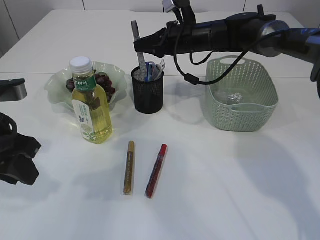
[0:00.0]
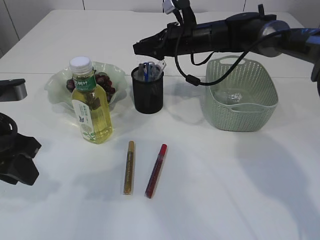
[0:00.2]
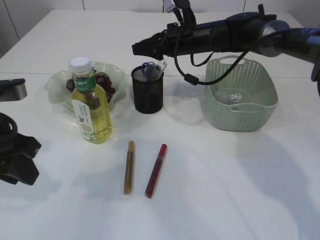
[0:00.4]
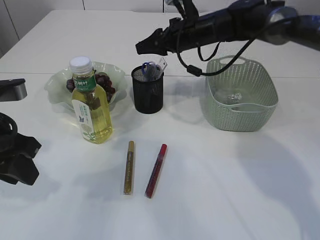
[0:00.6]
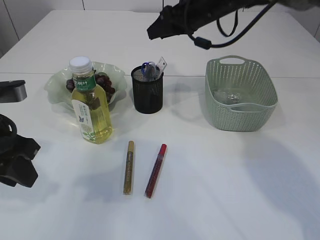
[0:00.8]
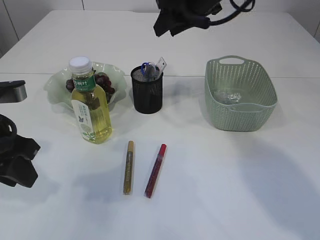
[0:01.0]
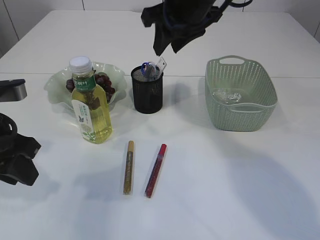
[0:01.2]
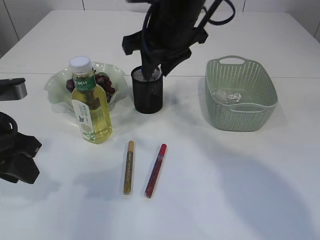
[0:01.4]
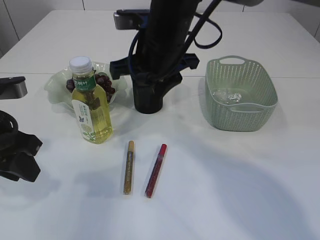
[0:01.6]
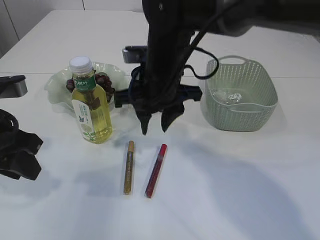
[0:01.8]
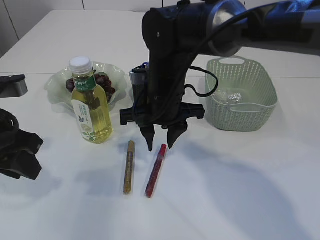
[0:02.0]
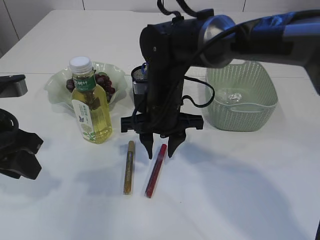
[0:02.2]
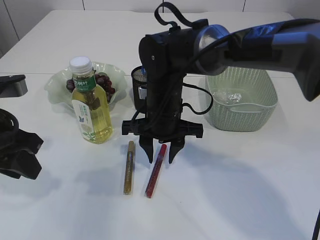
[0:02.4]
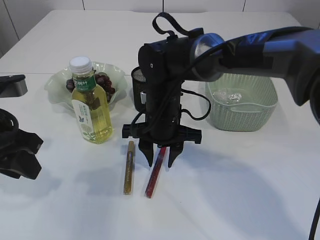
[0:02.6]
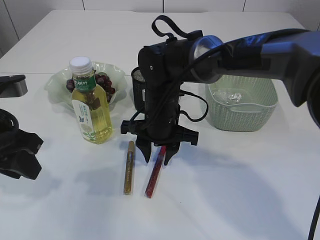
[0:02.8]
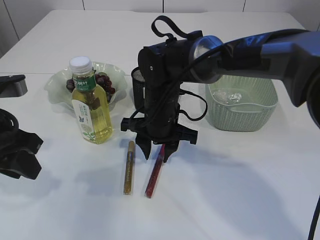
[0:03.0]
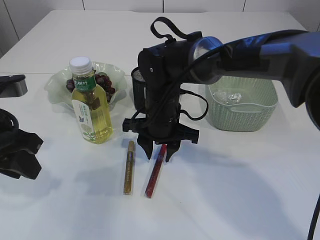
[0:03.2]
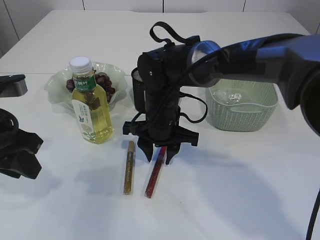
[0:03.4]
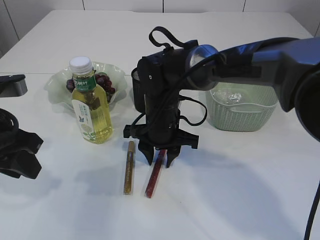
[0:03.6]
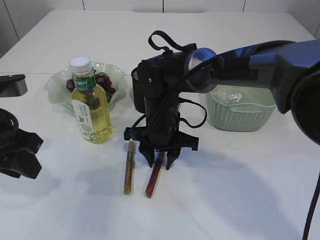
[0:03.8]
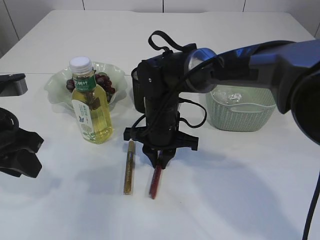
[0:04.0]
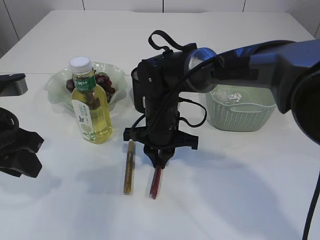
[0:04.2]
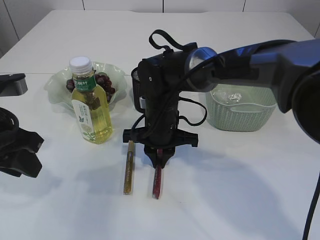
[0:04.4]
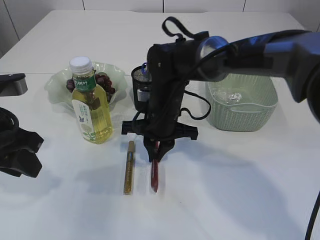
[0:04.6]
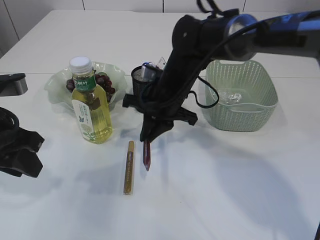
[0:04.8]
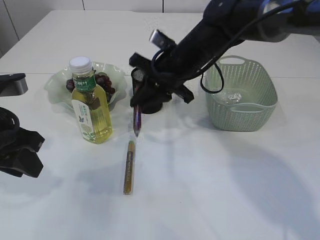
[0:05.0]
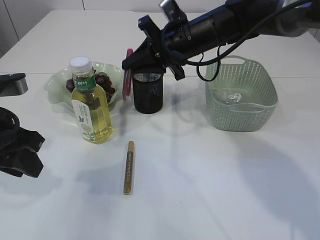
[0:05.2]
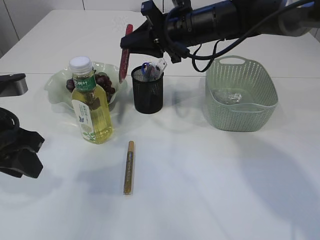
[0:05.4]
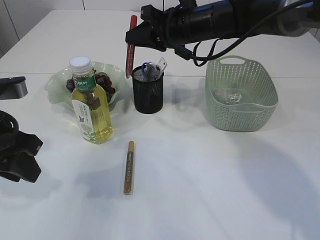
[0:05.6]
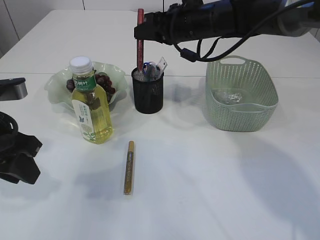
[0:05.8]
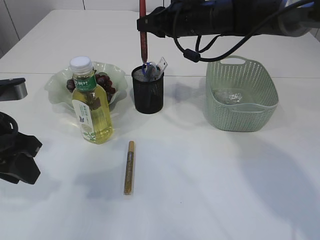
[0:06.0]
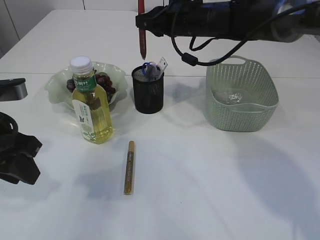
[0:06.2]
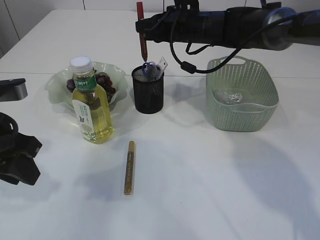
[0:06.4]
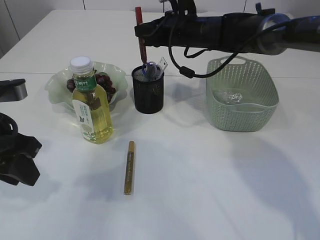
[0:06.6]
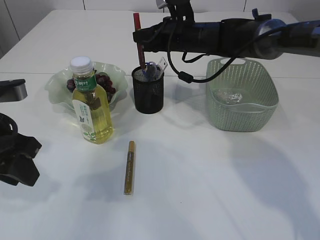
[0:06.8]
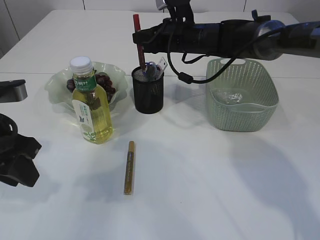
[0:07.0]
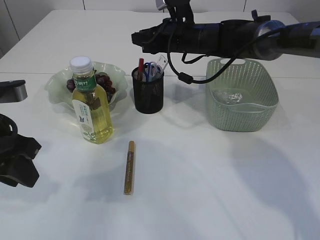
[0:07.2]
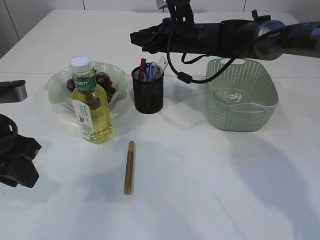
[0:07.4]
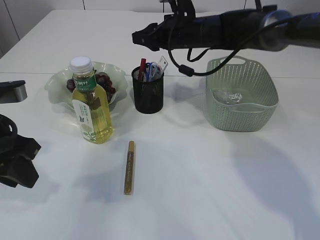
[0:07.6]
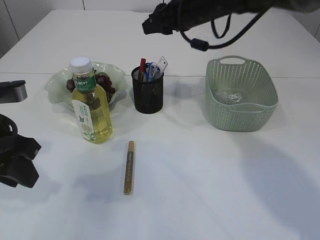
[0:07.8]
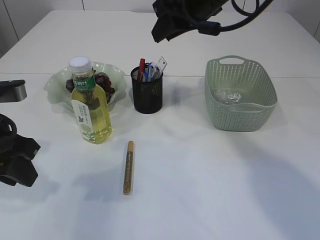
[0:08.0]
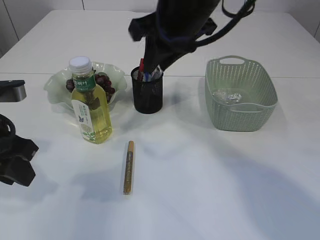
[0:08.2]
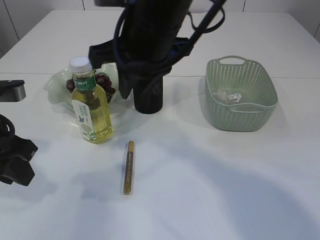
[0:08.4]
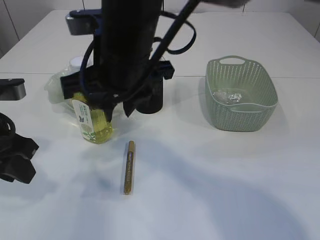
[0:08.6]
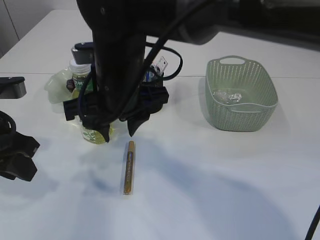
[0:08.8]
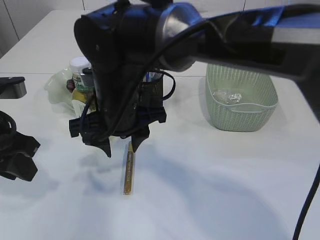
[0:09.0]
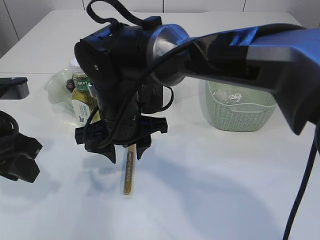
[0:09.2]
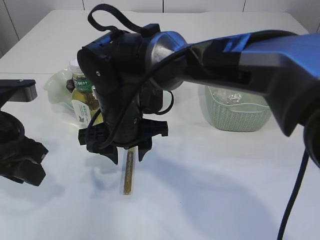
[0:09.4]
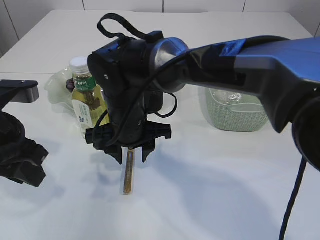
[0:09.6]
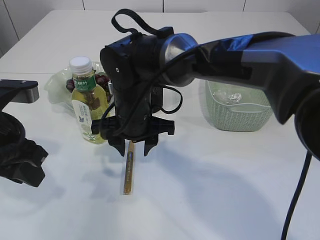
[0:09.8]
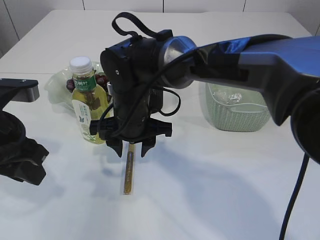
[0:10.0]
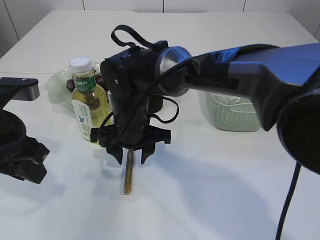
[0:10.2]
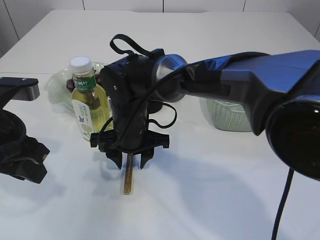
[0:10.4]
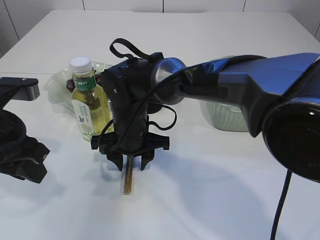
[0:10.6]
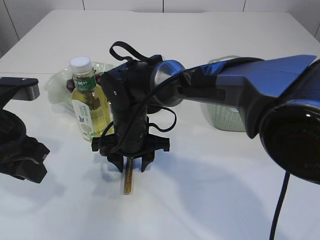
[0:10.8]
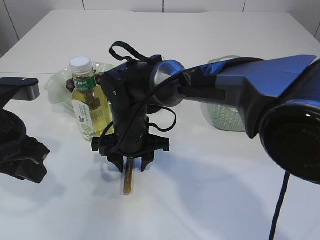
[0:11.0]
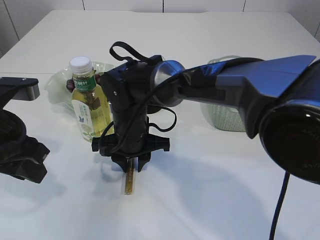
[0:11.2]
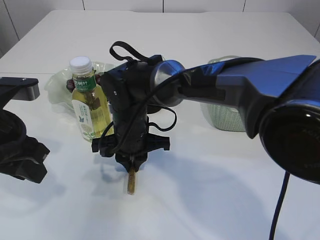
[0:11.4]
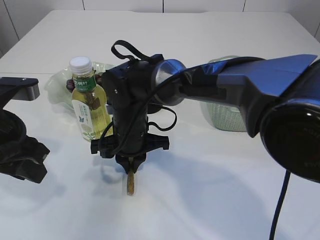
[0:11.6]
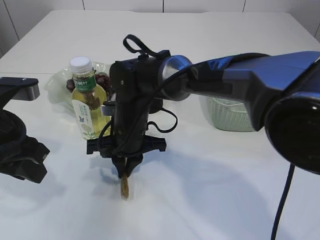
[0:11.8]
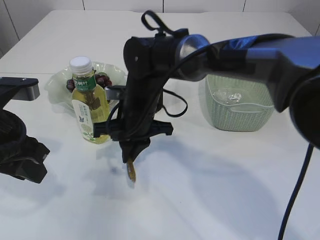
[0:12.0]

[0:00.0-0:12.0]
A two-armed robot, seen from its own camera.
Step, 0:01.0 to 0:04.6: pick up the red glue.
Step, 0:04.8 to 0:07.8: place the red glue into the pen holder.
Step, 0:08.0 to 0:11.8: pick up the yellow glue.
0:00.0 to 0:01.6: The right gripper travels backward, to the left and upward by some 20 cm, and opens.
0:01.6 to 0:03.0: The right gripper heads downward, covering about 15 cm.
0:03.0 to 0:04.4: The right gripper closes.
0:04.4 to 0:06.0: The right gripper shifts some 20 cm upward, forward and to the right.
0:06.0 to 0:07.6: The grippers move only a little.
0:07.6 to 0:09.0: The right gripper travels backward and to the left by some 25 cm.
0:09.0 to 0:10.4: The right gripper heads downward, covering approximately 10 cm.
0:10.4 to 0:12.0: The right gripper closes.

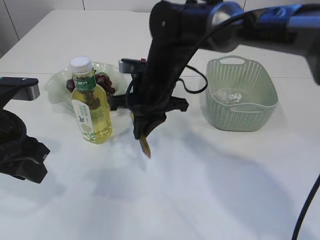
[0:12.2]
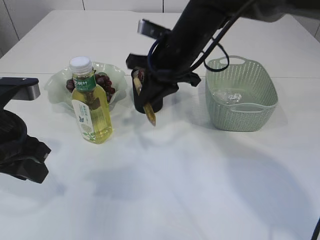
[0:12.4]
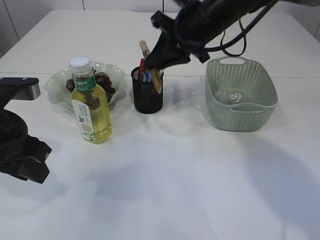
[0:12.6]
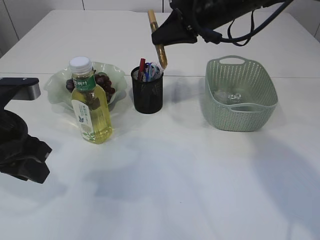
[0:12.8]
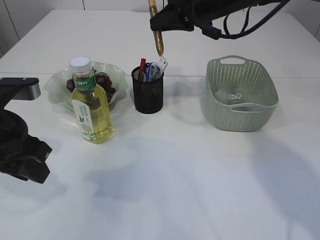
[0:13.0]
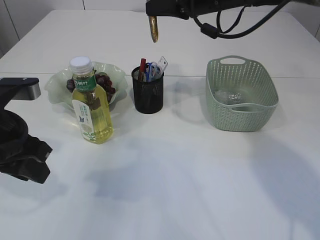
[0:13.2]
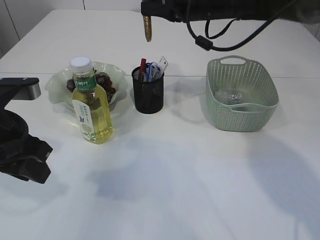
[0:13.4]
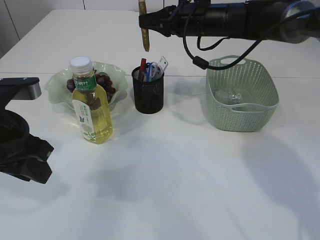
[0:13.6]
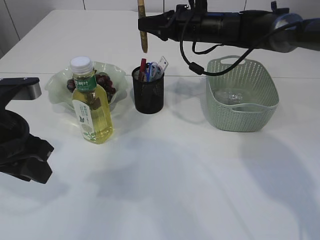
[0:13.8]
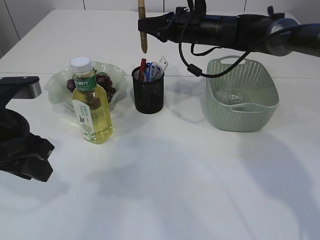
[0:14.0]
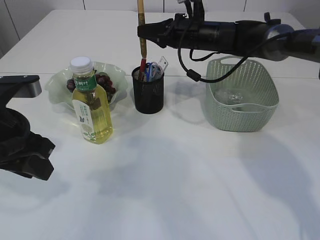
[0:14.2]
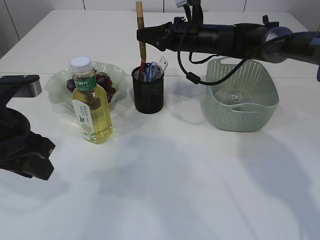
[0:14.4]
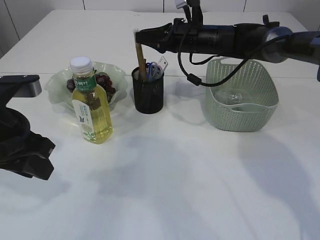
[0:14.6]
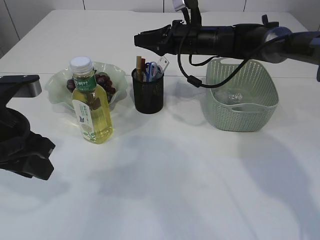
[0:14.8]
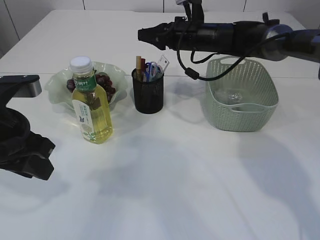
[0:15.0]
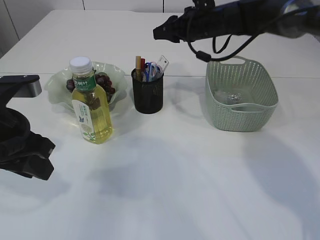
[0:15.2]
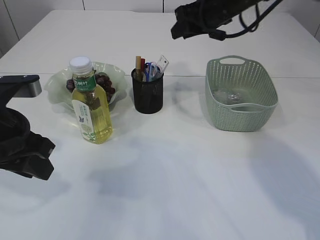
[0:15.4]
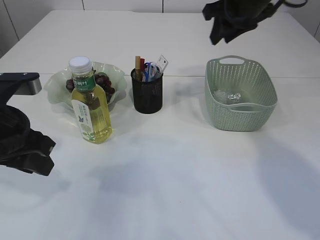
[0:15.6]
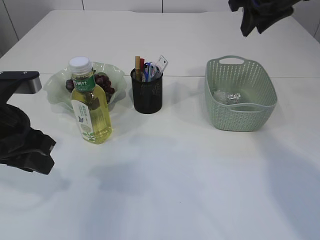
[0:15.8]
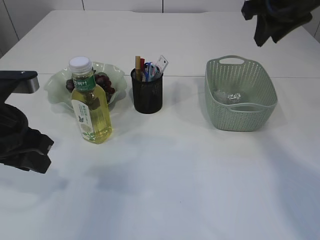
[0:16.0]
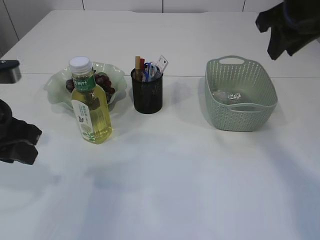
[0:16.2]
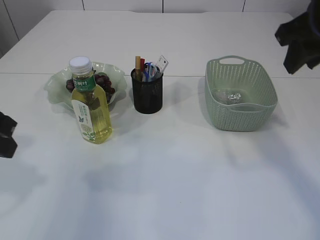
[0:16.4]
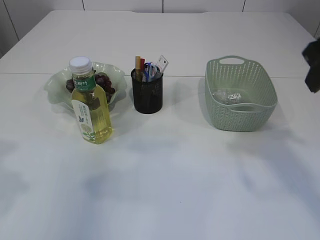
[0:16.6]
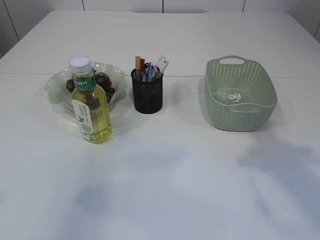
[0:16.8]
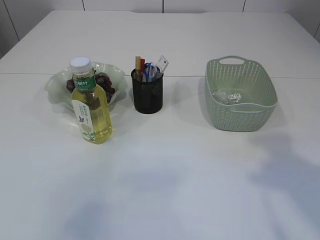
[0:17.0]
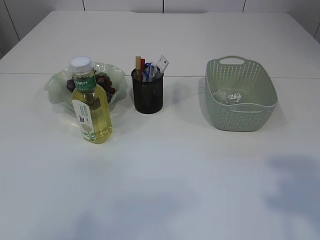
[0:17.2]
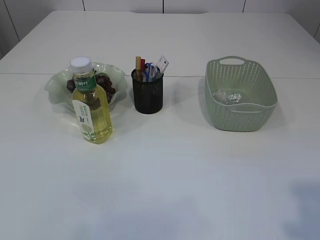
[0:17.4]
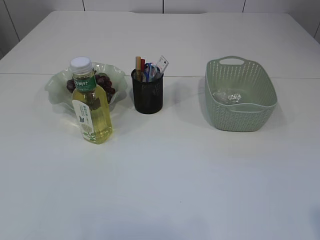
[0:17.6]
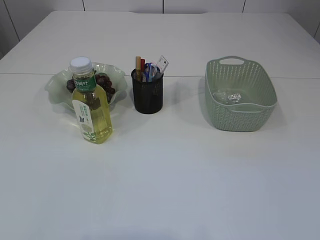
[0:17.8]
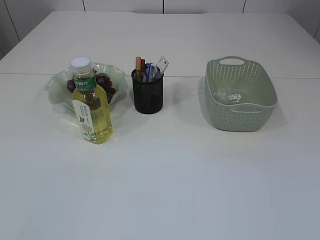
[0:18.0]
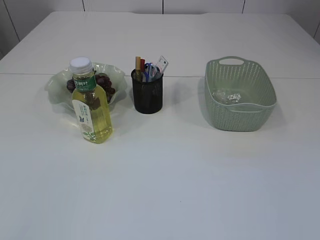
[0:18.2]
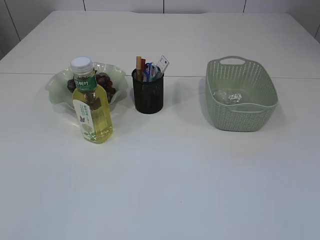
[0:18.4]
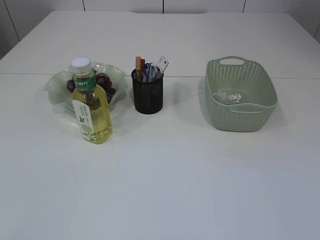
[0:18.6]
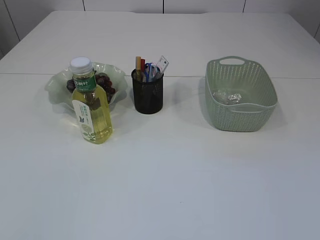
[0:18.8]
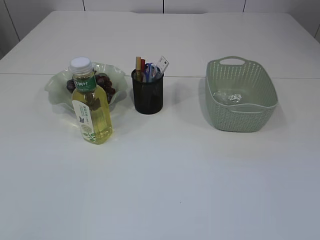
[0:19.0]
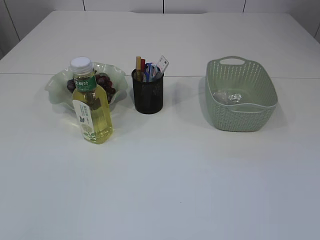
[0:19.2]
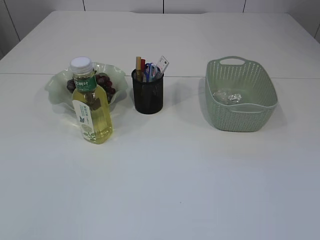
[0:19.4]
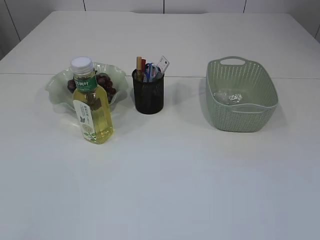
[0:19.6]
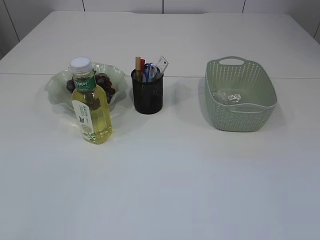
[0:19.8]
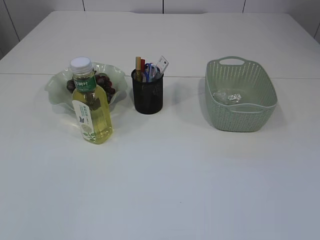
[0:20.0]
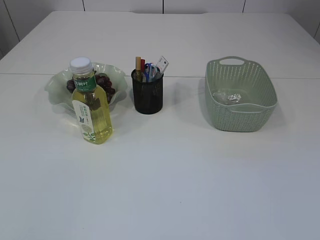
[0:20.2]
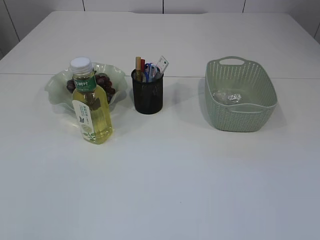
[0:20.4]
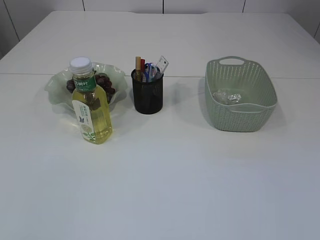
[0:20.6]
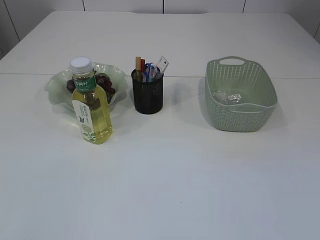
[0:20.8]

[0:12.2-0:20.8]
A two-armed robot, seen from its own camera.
Step, 0:12.2 to 0:15.2: place the yellow glue into the pen holder.
0:12.2 to 0:13.6: The right gripper is displaced forward, to the right and upward by some 15 cm.
0:13.6 to 0:15.0: The right gripper changes place by some 5 cm, and opens up.
0:15.0 to 0:16.6: The left gripper goes roughly 5 cm upward, and opens. The right gripper shifts about 30 cm backward, upward and to the right.
0:16.6 to 0:18.0: The right gripper heads backward, covering some 30 cm, while the left gripper is displaced backward and to the left by roughly 20 cm.

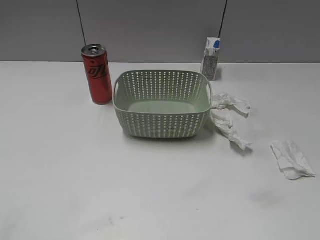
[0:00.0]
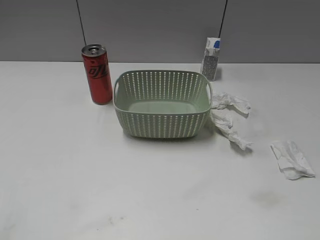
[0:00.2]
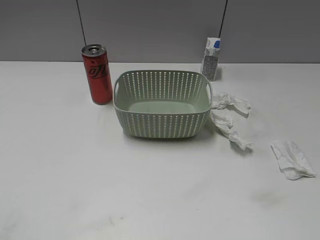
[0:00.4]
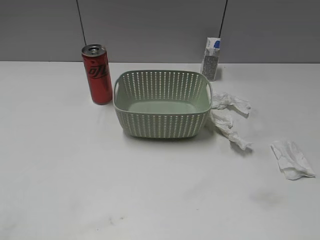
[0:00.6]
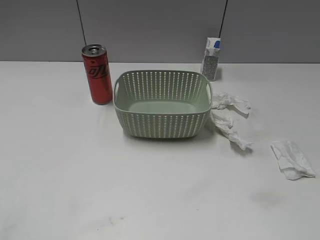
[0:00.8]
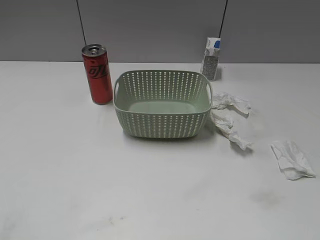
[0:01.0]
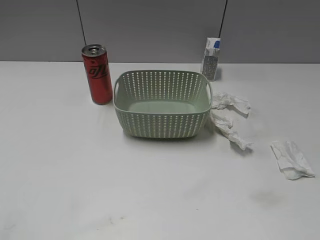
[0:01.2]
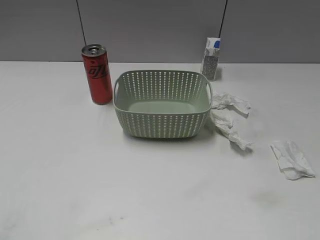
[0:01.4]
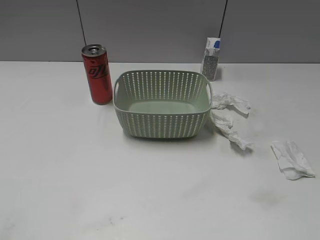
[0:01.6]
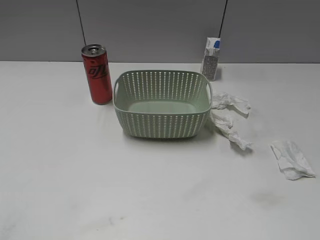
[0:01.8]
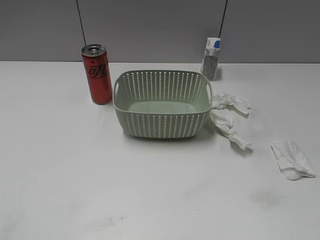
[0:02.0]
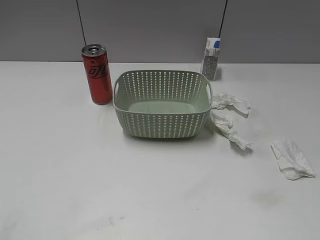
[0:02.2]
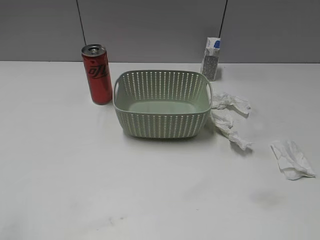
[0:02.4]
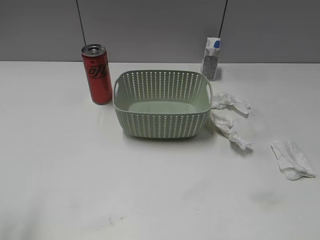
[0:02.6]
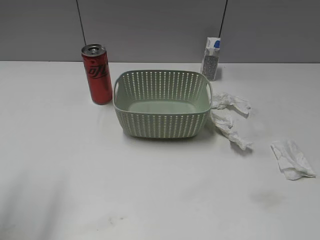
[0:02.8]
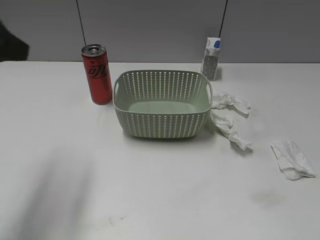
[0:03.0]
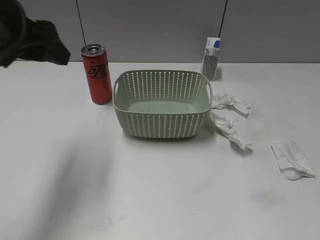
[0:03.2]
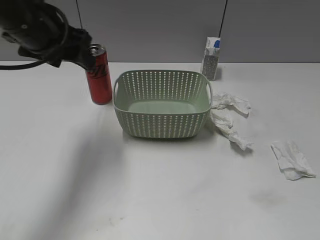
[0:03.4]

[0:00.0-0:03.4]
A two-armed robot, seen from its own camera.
0:01.6 to 0:03.4: The left gripper shifts about 35 cm forward and to the right.
